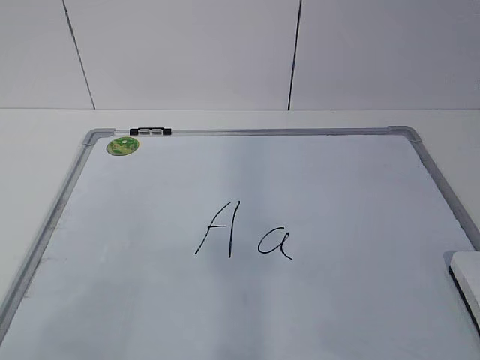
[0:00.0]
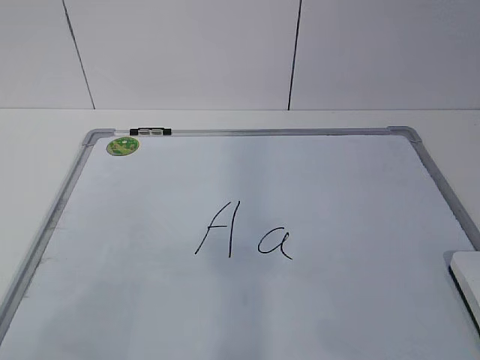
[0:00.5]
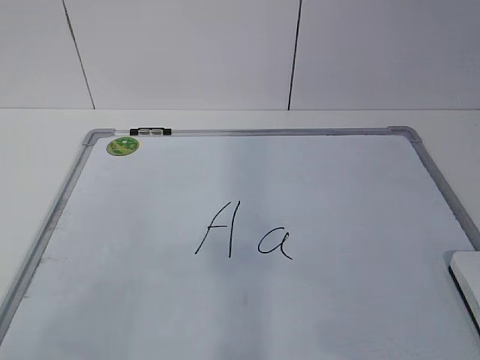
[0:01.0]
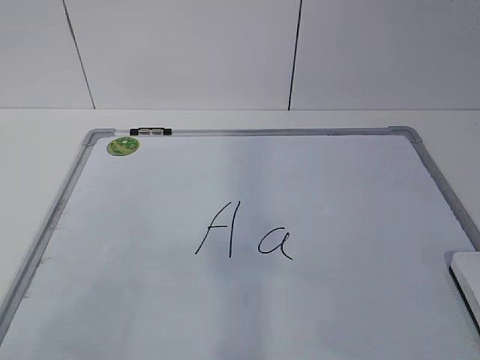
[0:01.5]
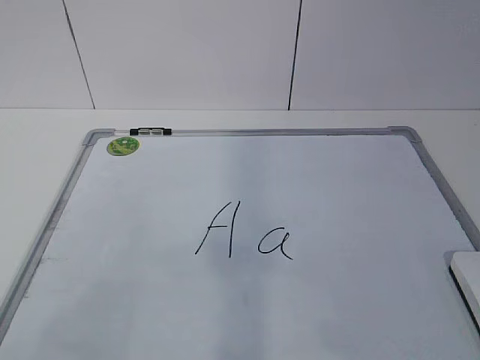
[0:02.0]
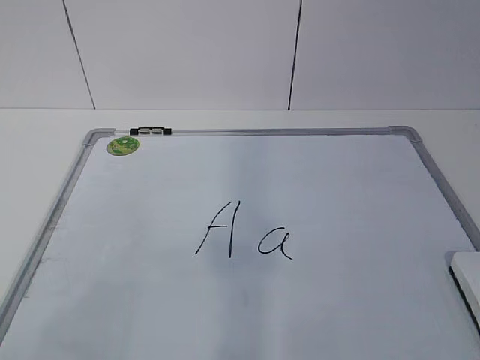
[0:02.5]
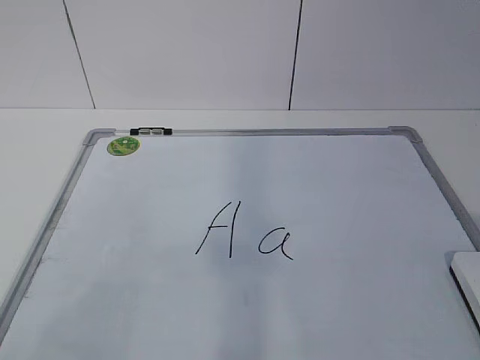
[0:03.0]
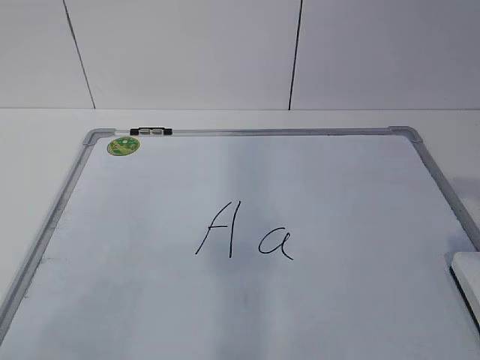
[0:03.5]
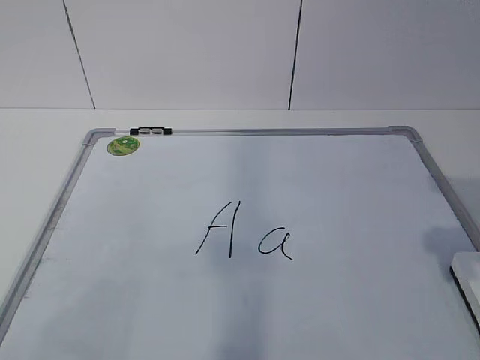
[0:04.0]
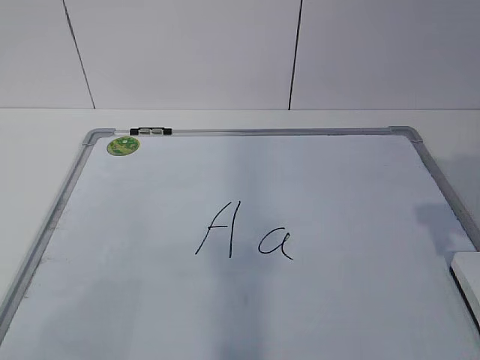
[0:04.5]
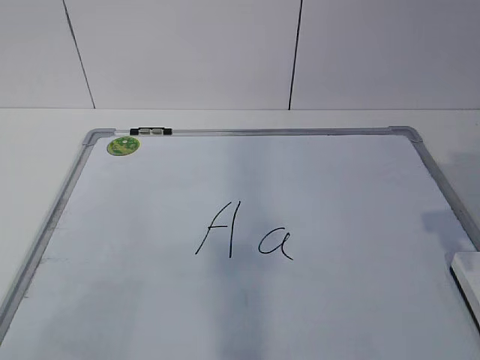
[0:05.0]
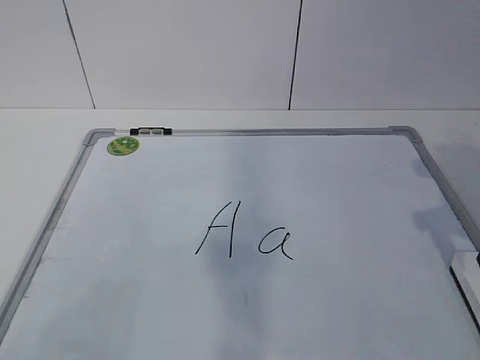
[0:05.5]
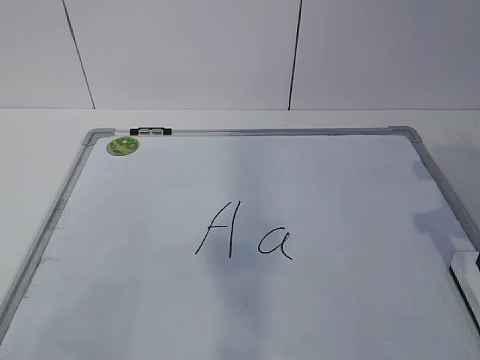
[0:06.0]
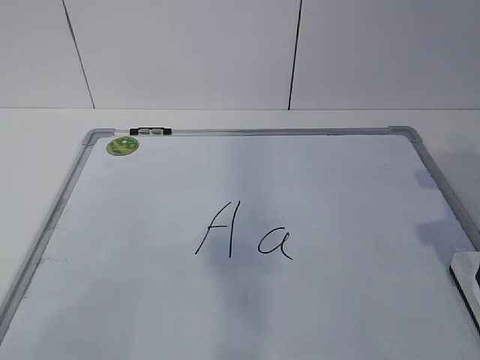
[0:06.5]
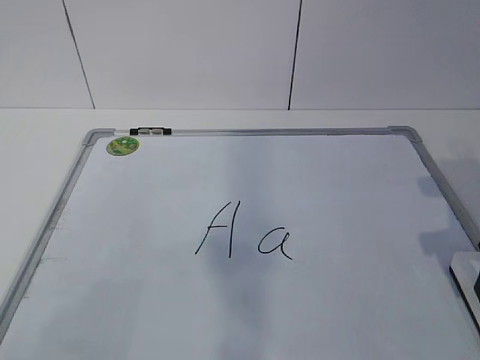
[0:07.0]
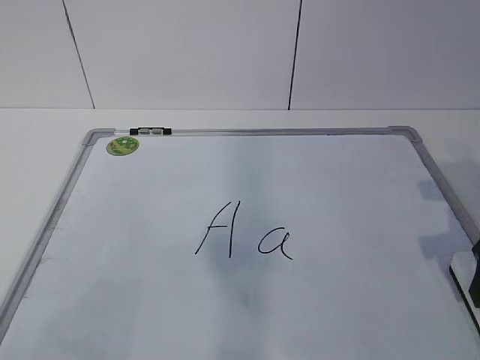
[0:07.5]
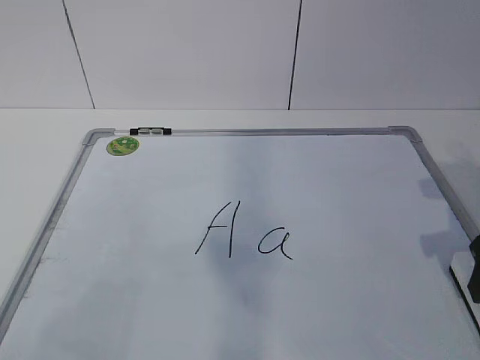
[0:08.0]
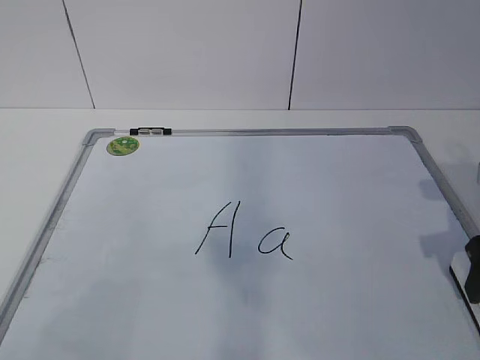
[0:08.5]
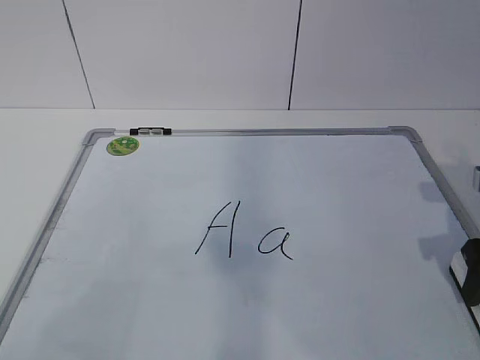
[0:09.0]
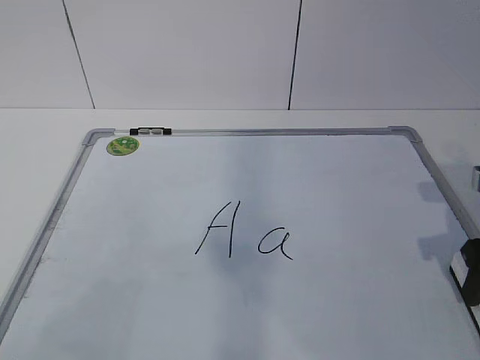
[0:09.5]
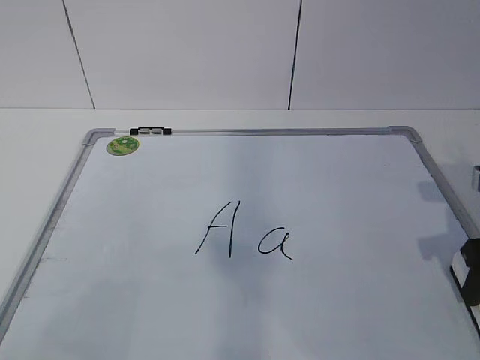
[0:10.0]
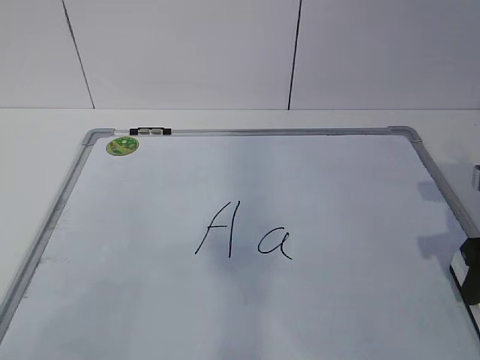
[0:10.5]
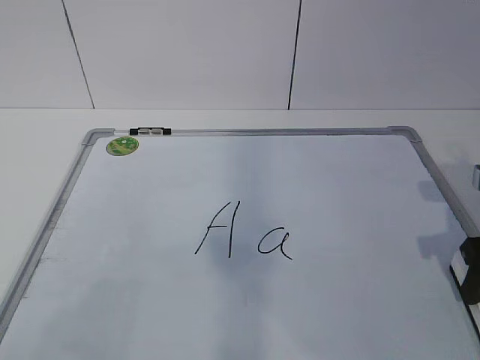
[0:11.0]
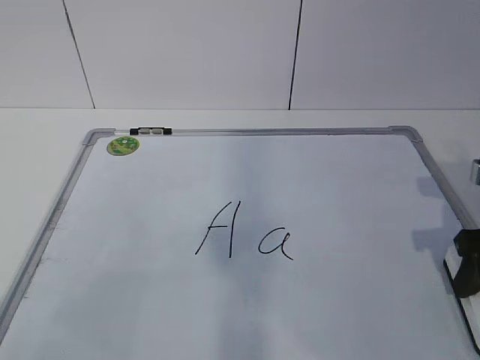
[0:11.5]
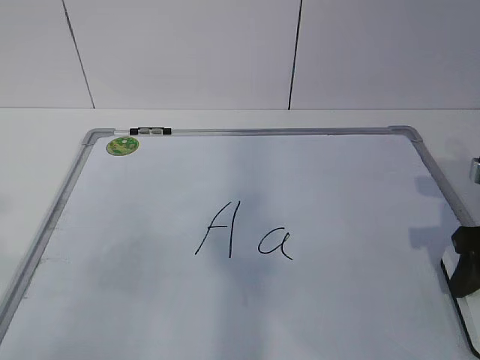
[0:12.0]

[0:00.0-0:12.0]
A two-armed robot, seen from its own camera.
Task of the whole recording: pick up the eraser on the blackboard and erase the letter "a".
0:02.0 to 0:04.0: The right gripper goes about 15 cm forward, and opens.

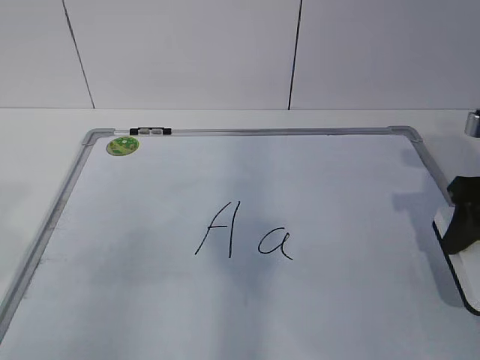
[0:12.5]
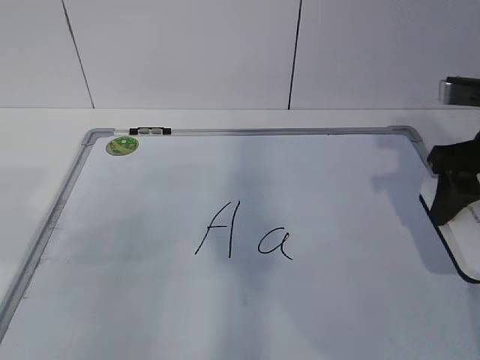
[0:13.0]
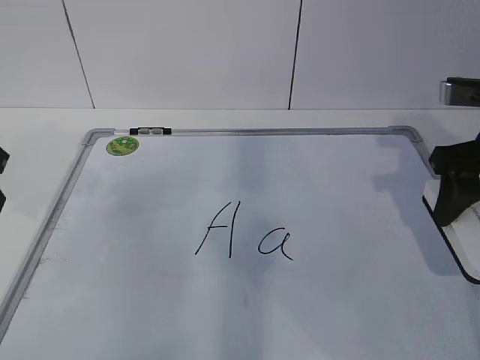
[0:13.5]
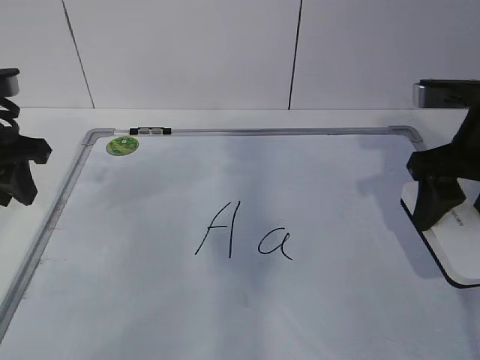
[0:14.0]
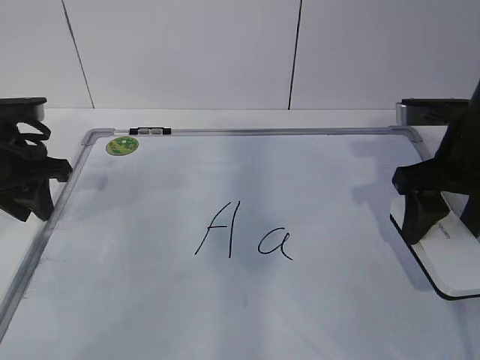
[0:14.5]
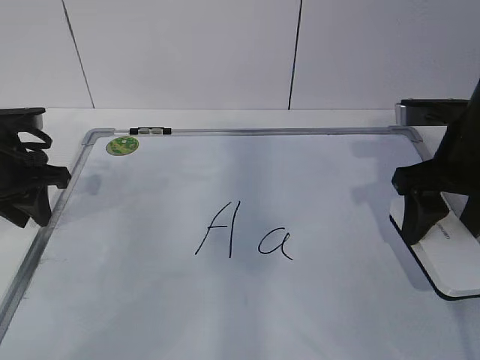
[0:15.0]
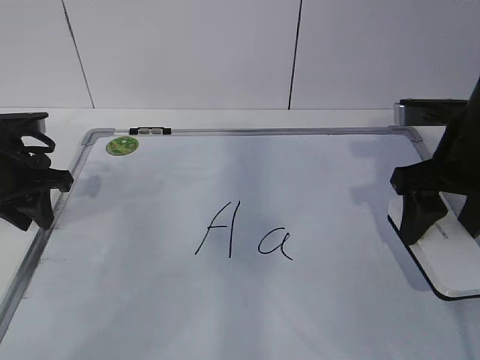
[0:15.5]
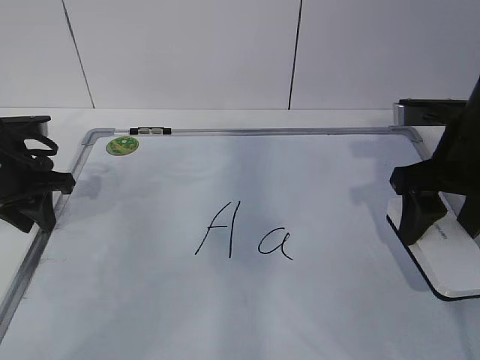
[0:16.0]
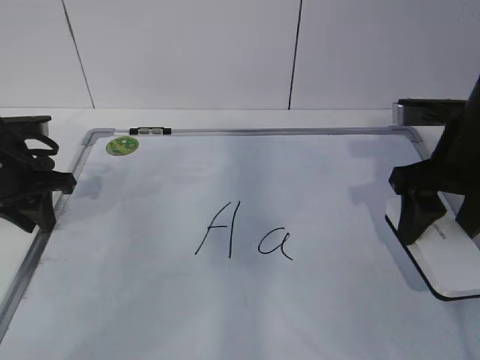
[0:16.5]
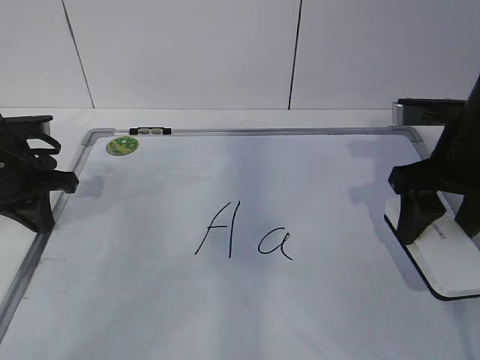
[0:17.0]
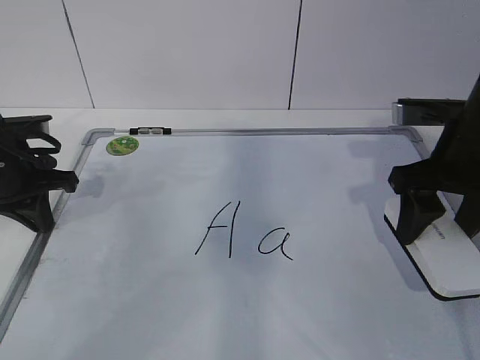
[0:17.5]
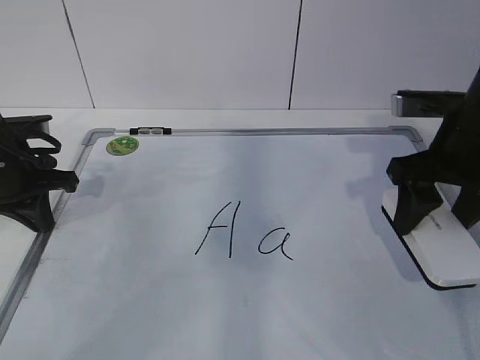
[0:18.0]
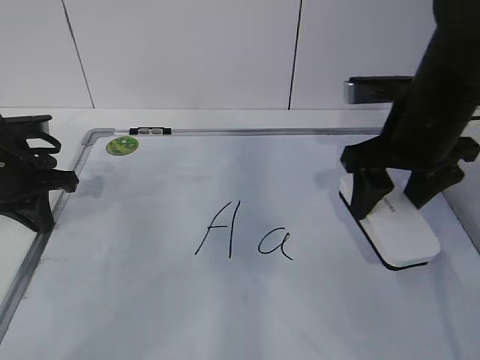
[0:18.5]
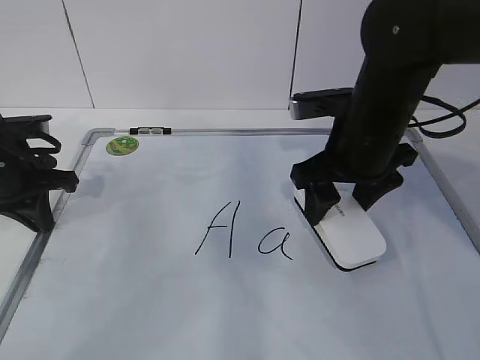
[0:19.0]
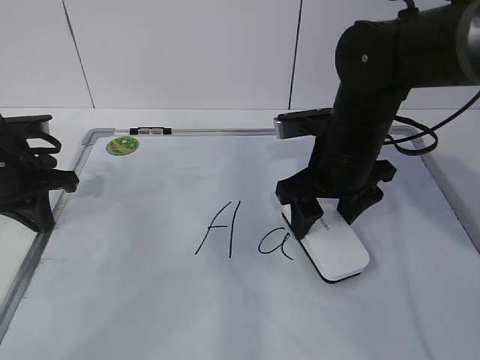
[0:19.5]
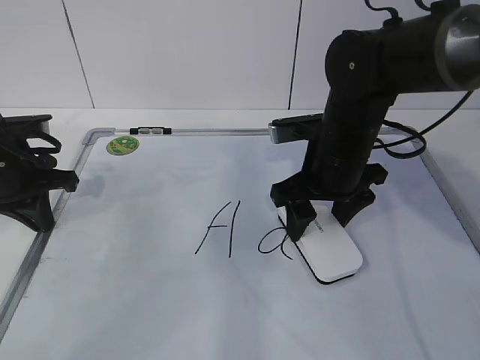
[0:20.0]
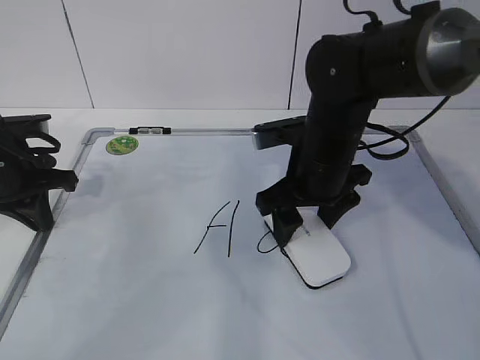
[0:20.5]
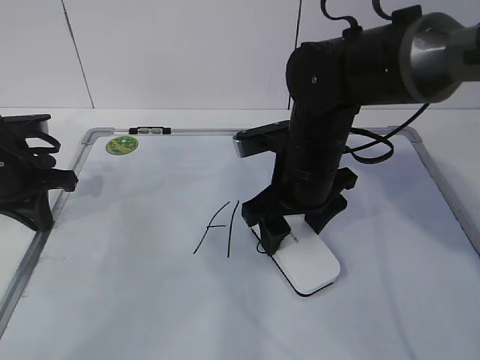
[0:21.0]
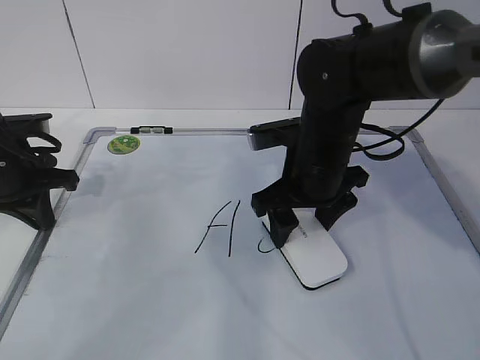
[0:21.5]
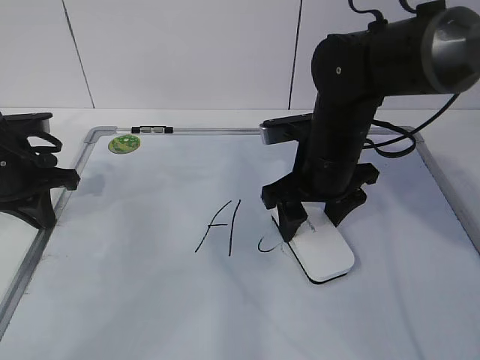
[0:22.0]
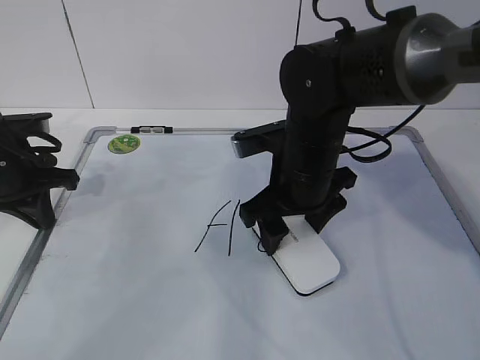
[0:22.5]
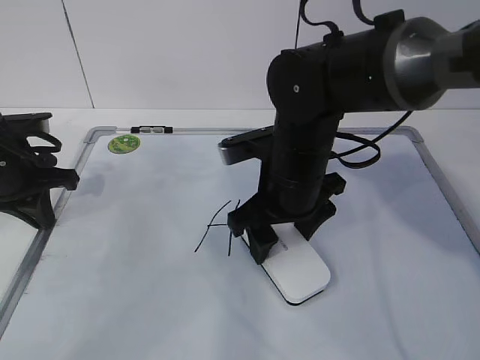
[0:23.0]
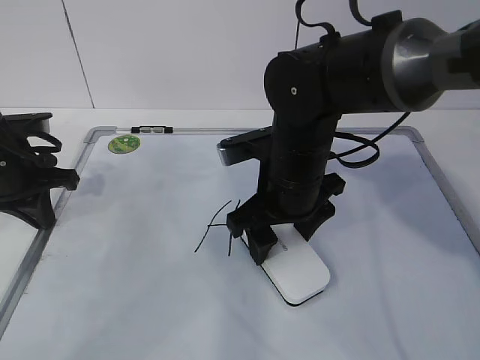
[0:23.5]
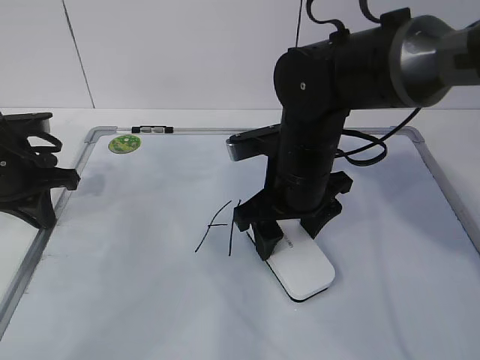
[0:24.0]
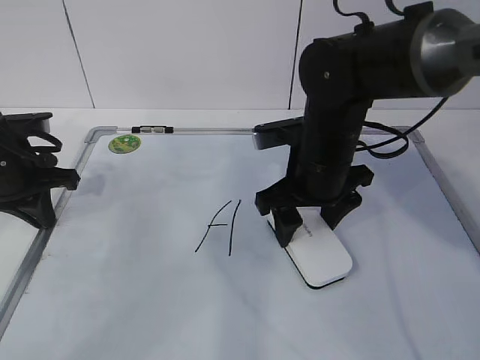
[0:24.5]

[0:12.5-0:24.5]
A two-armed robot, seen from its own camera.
Task of the whole recording: pick up the eraser on the blackboard and erase the letter "a".
Step, 0:14.5 to 0:20.0: Erase the letter a with your right hand.
0:12.5 to 0:14.5: The left gripper travels forward by about 25 cm. Meanwhile the right gripper goes about 5 cm to the left.
0:14.5 to 0:16.5: There are only small adjustments of the grippers.
0:16.5 to 0:18.5: The left gripper closes up.
0:18.5 to 0:20.5: The right gripper moves to the left and downward, about 10 cm.
0:20.5 to 0:24.5: The grippers move only a little.

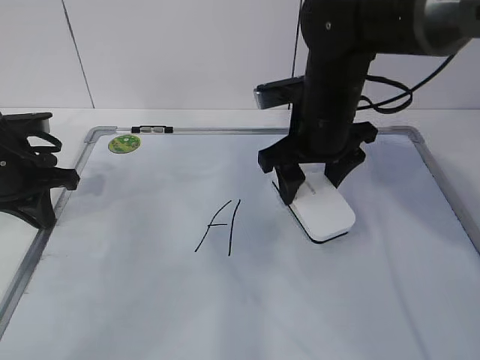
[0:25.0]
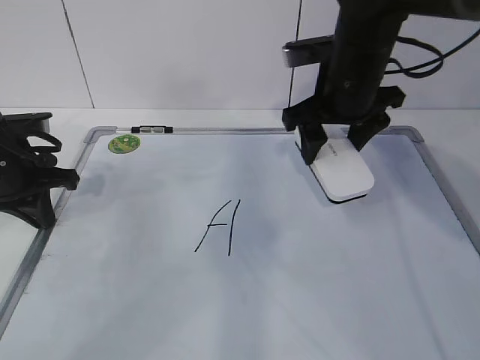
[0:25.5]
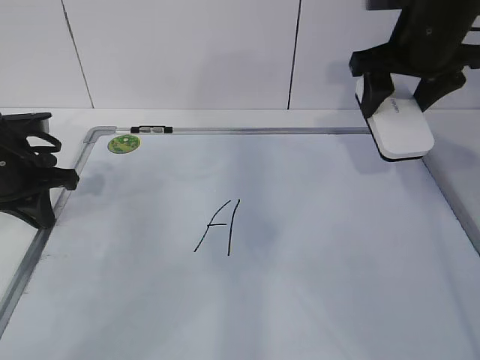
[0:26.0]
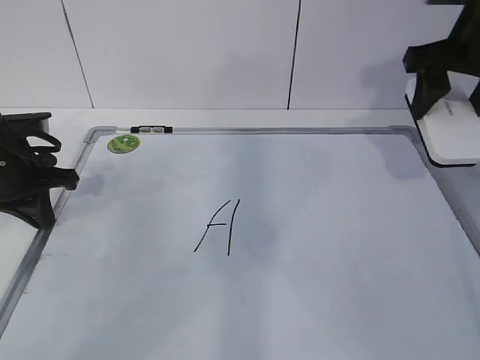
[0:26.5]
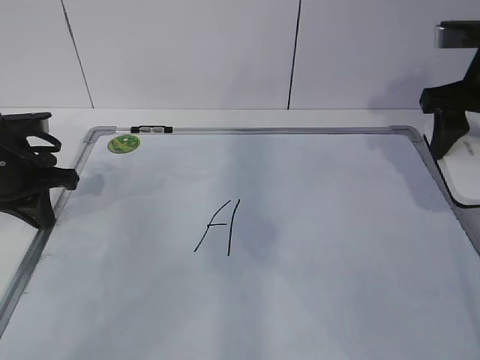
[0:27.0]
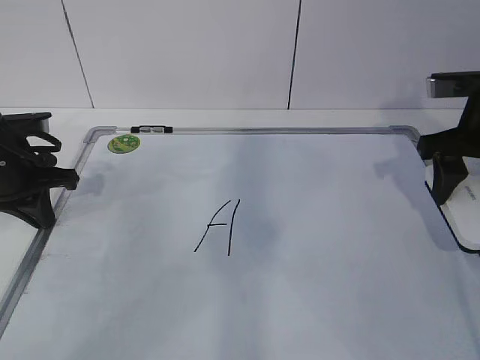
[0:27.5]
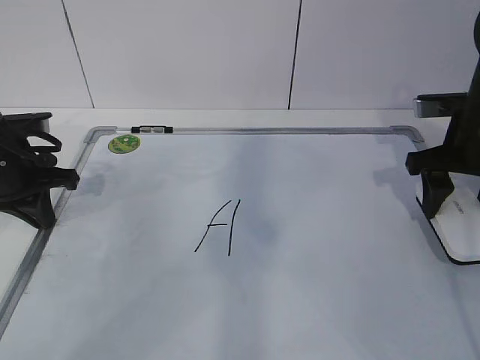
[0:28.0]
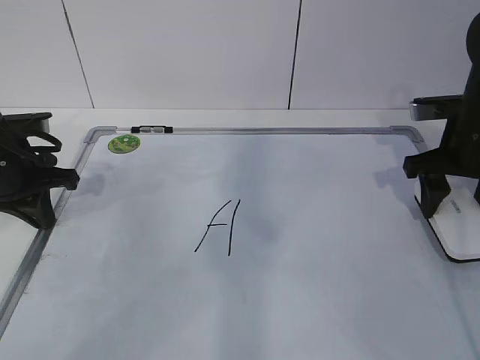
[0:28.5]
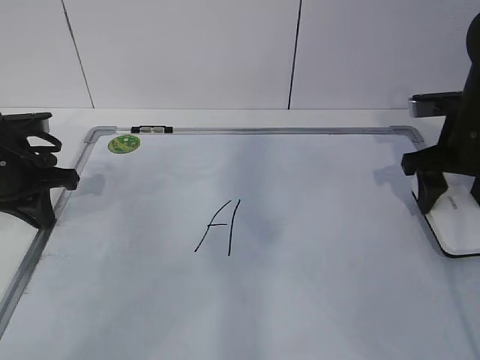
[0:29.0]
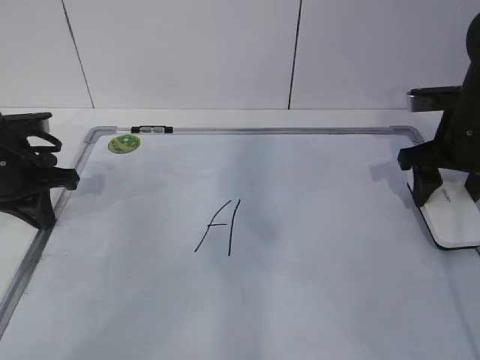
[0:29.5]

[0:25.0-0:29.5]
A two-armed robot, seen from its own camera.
Task of the whole recording: pick up the eraser on the blackboard and erase the letter "a".
0:25.0 to 0:27.0: The right gripper goes approximately 20 cm to the right and upward.
0:27.0 to 0:29.5: The right gripper goes about 10 cm downward.
